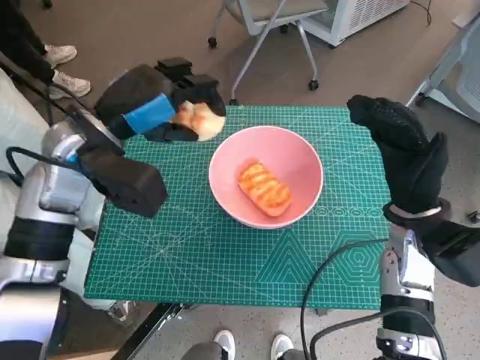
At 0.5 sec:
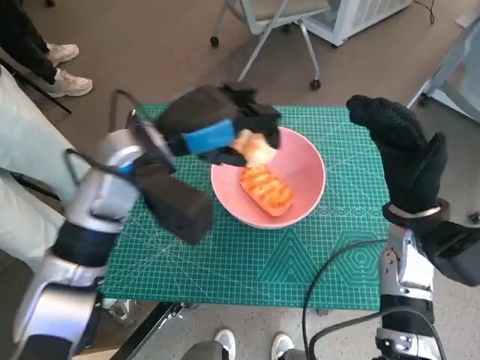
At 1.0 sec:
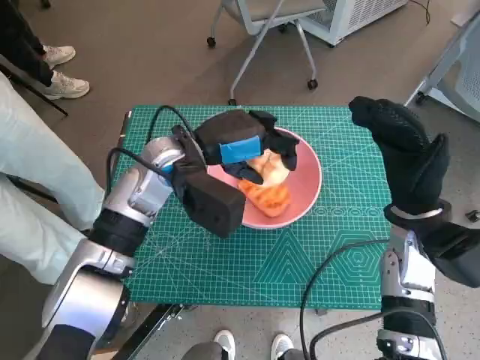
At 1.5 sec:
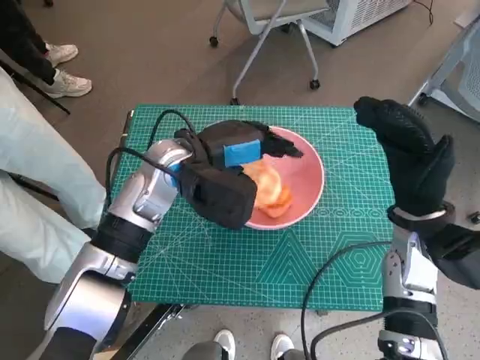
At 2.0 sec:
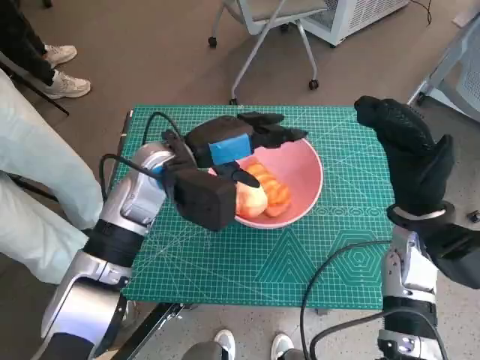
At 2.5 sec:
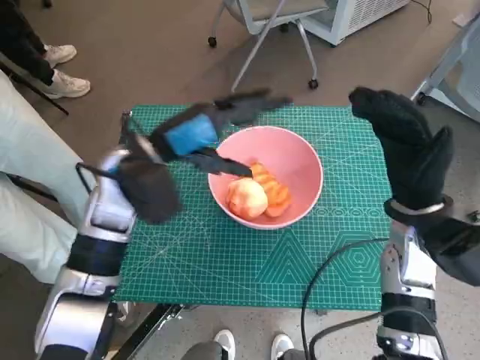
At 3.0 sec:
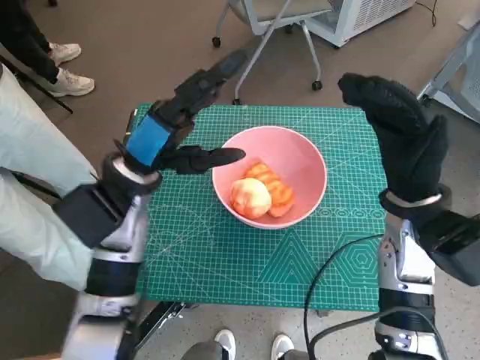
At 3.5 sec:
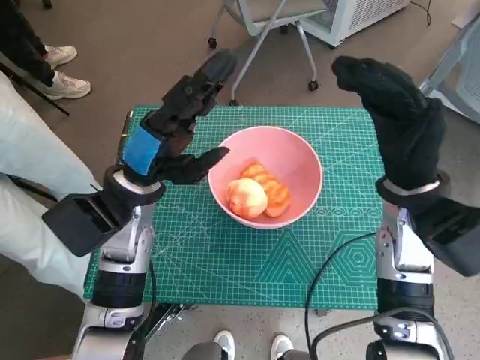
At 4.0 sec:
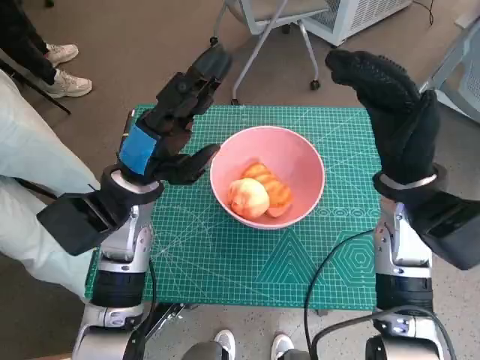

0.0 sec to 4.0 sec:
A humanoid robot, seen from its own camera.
Task of the whole recording: Push the bowl into the center of the table and put the bread into the bowl.
Step, 0.0 sec to 2.0 sec: Place the round bread in pink bowl with left hand.
0.0 sec to 2.0 sec: The left hand goes about 10 cm to the right.
2.0 sec to 4.0 sec: The left hand shifts by about 5 cm, while the right hand goes roughly 5 cm upward.

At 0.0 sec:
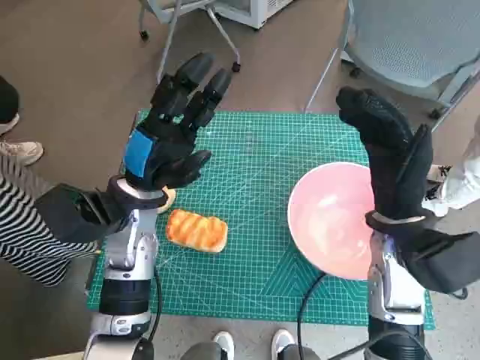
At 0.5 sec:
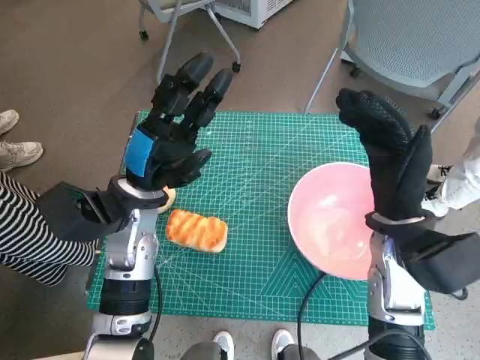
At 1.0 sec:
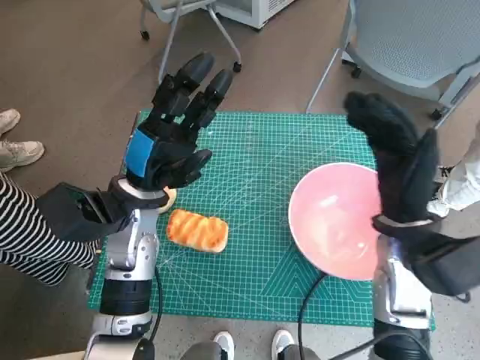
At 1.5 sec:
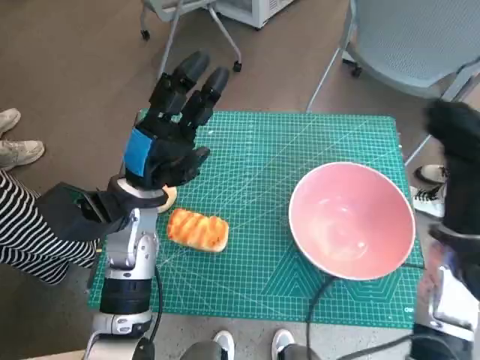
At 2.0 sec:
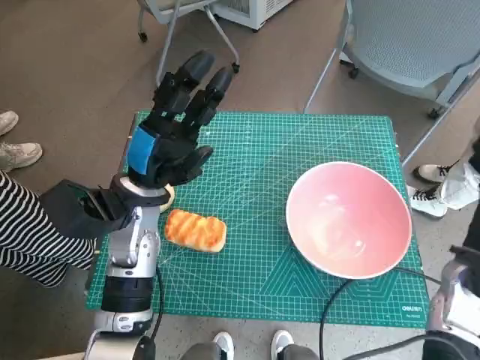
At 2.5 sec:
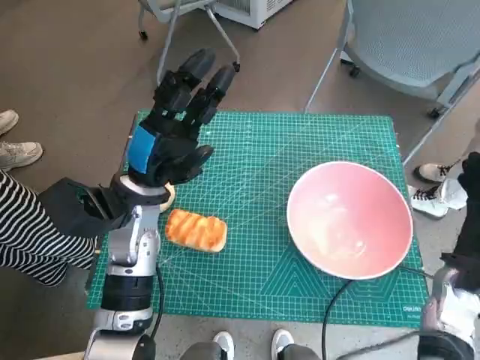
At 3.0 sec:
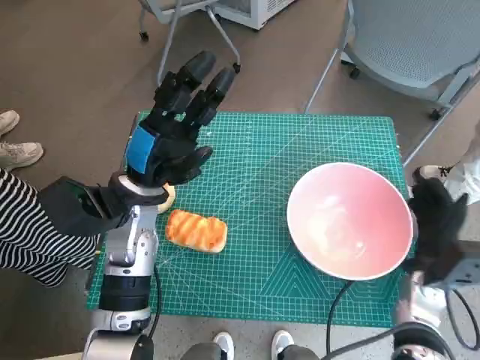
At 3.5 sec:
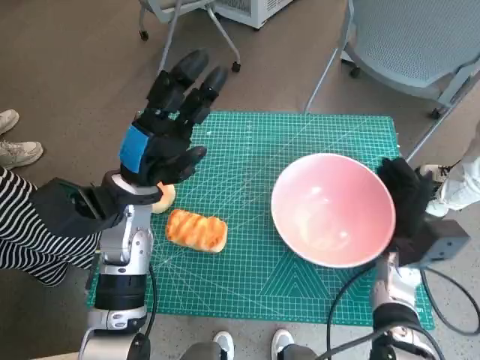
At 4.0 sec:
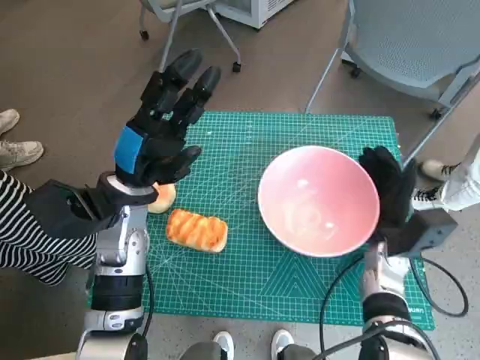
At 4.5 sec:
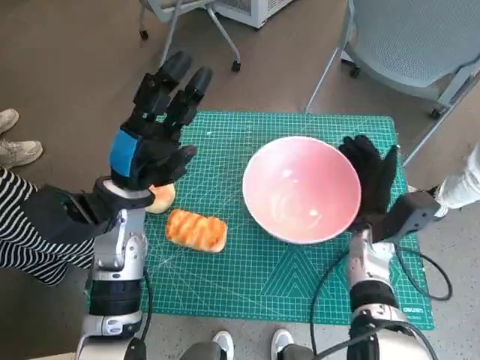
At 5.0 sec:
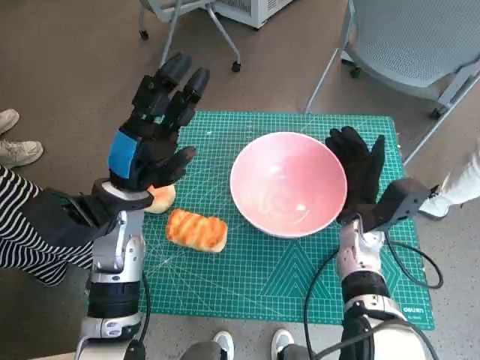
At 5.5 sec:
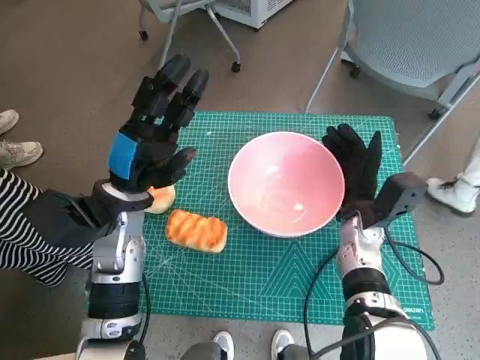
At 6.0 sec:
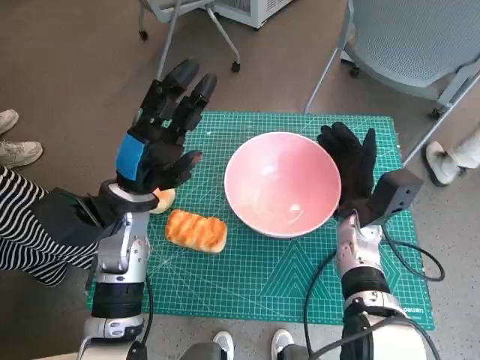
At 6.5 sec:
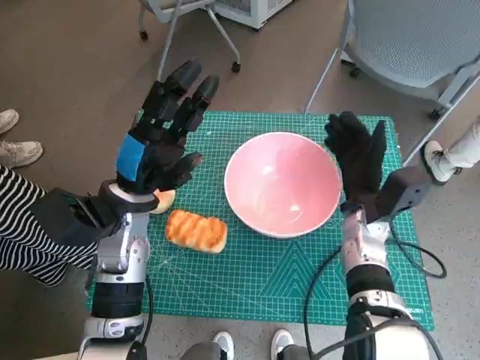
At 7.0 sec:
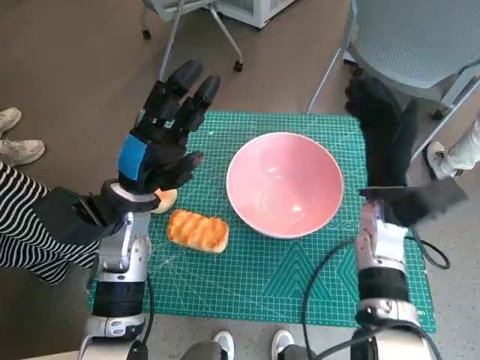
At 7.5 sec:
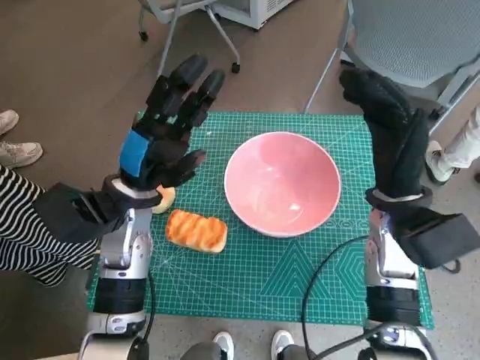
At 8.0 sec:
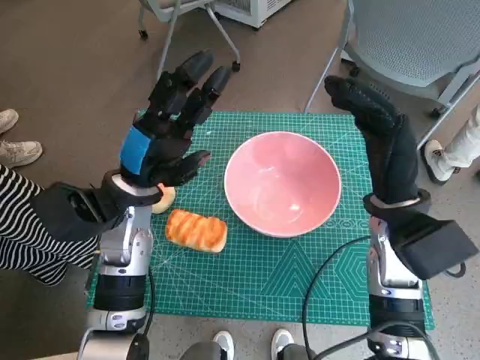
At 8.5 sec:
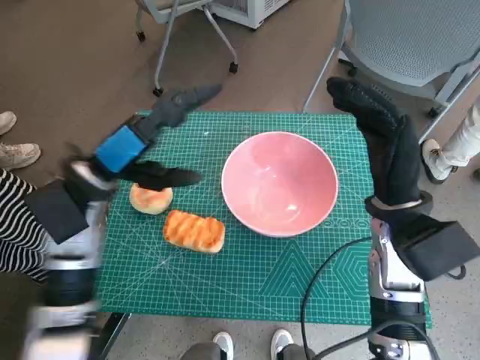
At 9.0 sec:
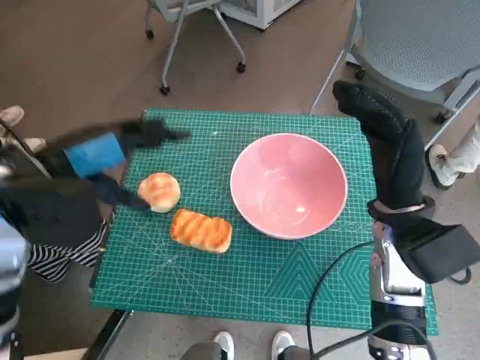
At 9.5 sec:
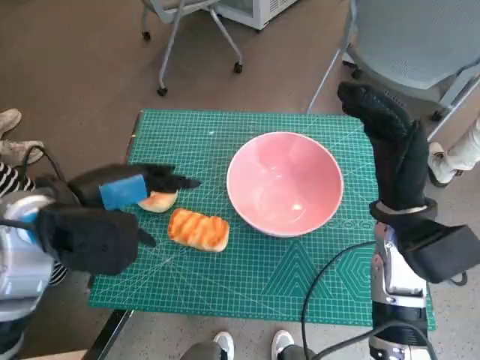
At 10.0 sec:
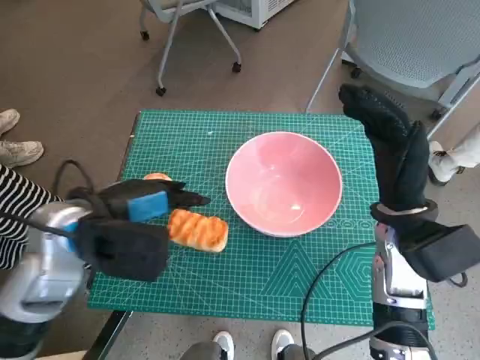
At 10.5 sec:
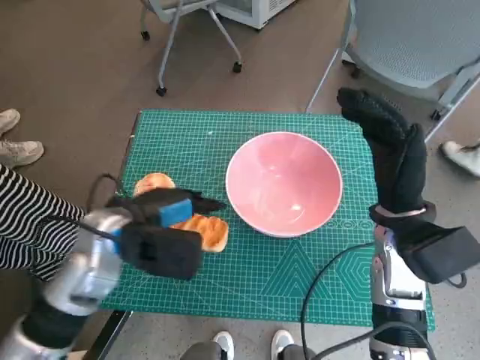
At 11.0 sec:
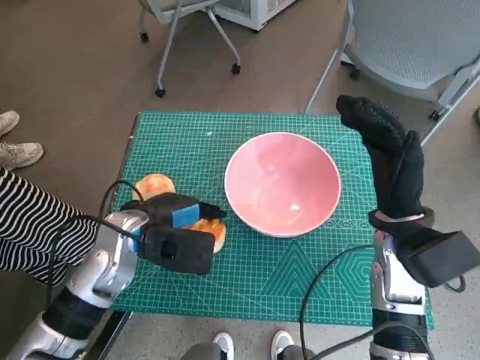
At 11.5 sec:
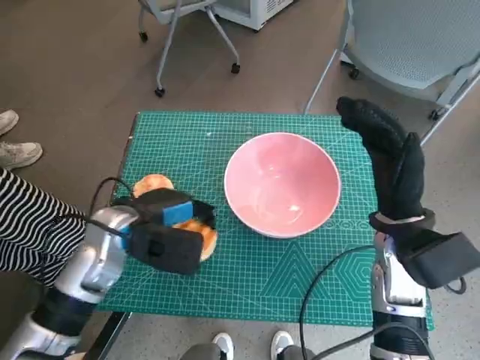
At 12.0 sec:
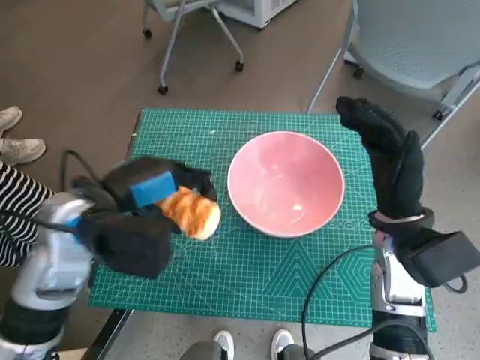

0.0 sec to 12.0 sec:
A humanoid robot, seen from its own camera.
Task of the whole recording: Push the bowl into the center of the table and put the bread into the bowl.
Step, 0.0 sec to 6.5 sec: Move the pink bowl to the center of table with right hand.
Step, 7.0 sec to 11.0 sec: Grasp the long bread with left hand.
2.0 sec to 4.0 sec: The right hand goes roughly 10 cm to the left and downward.
4.0 sec to 6.0 sec: The right hand shifts by roughly 5 cm.
6.0 sec to 8.0 sec: The right hand heads upward, covering roughly 10 cm.
8.0 sec to 10.0 sec: The left hand goes about 5 cm backward.
10.0 sec to 12.0 sec: The left hand moves about 10 cm downward and comes back.

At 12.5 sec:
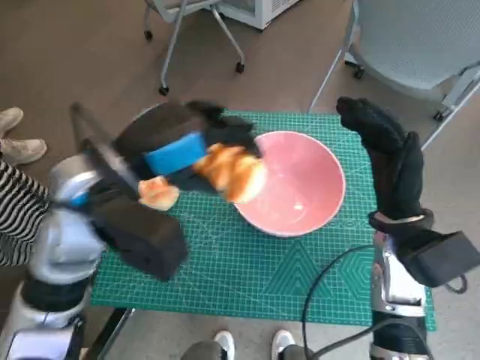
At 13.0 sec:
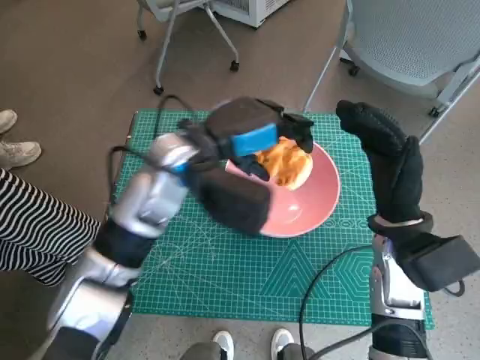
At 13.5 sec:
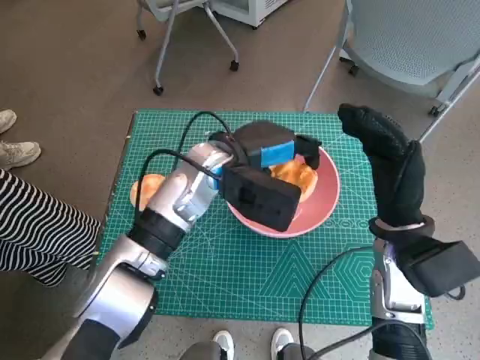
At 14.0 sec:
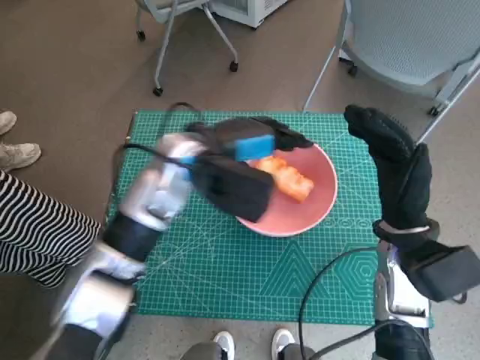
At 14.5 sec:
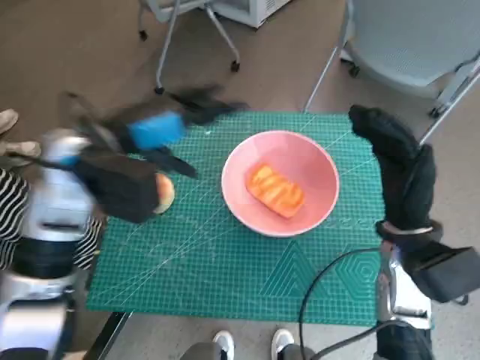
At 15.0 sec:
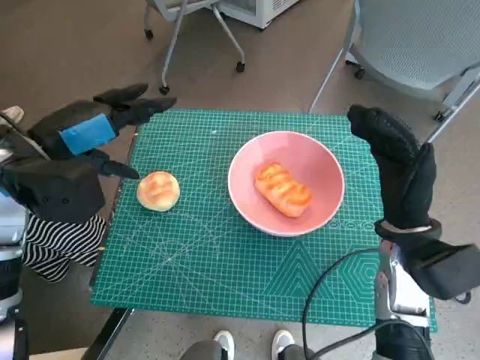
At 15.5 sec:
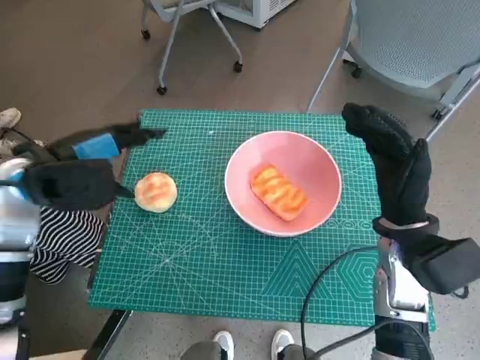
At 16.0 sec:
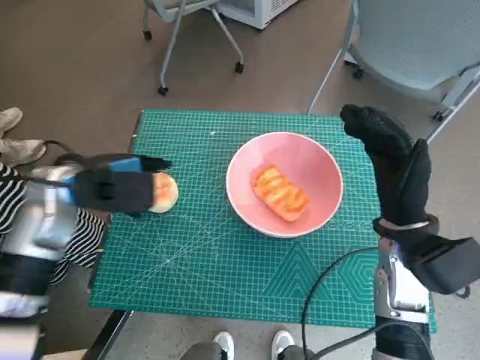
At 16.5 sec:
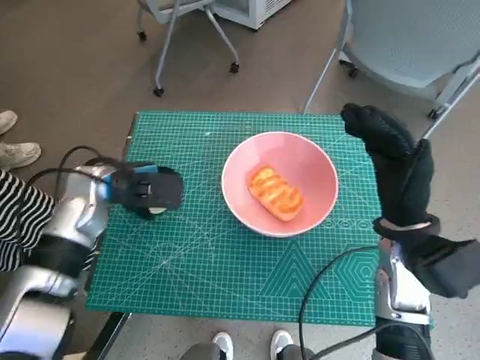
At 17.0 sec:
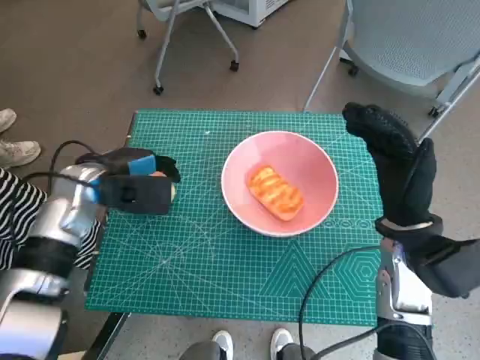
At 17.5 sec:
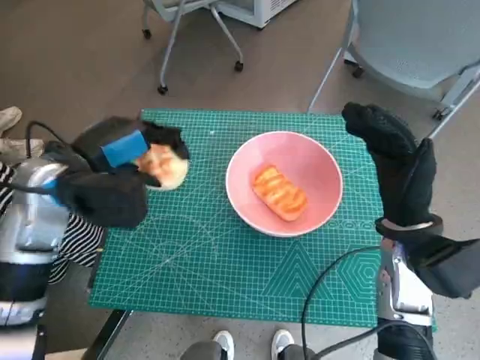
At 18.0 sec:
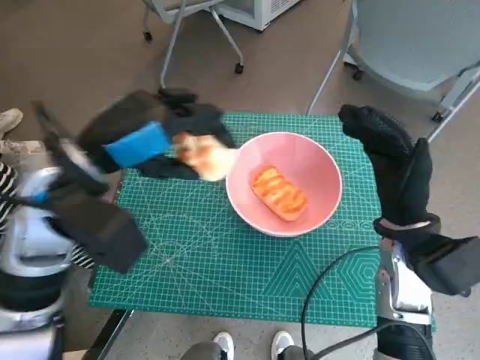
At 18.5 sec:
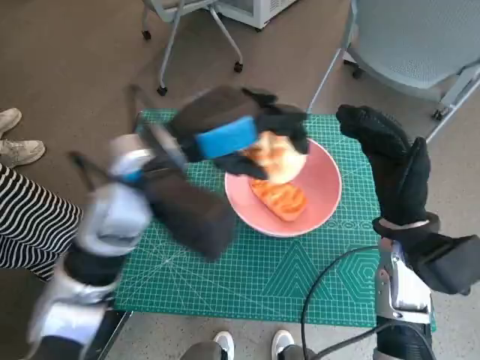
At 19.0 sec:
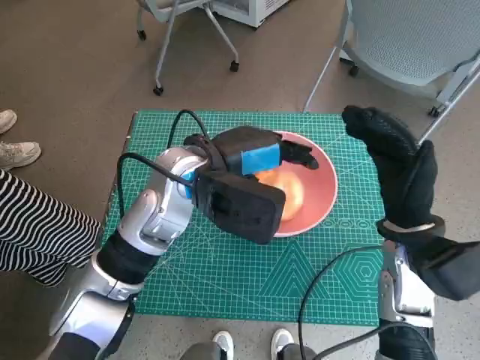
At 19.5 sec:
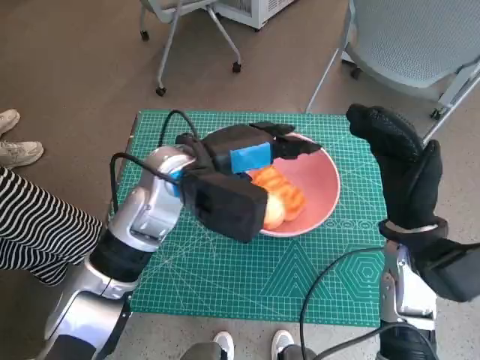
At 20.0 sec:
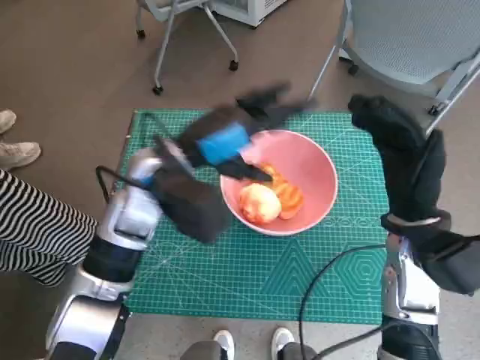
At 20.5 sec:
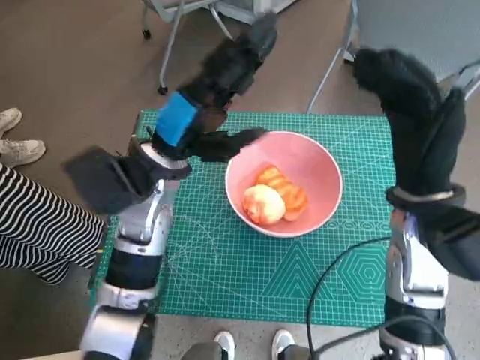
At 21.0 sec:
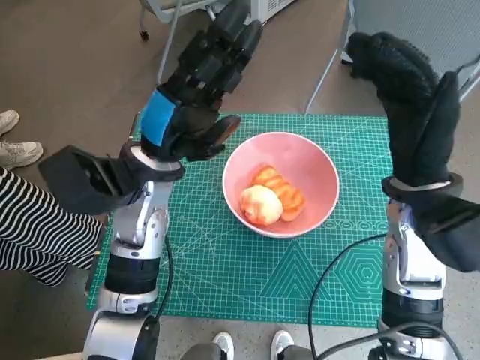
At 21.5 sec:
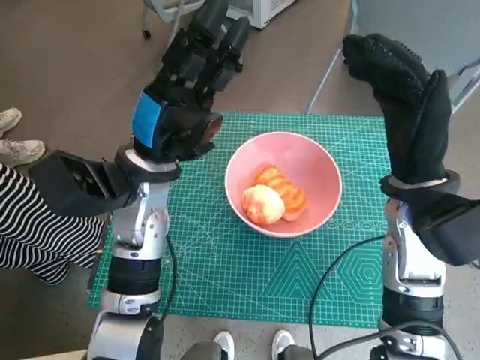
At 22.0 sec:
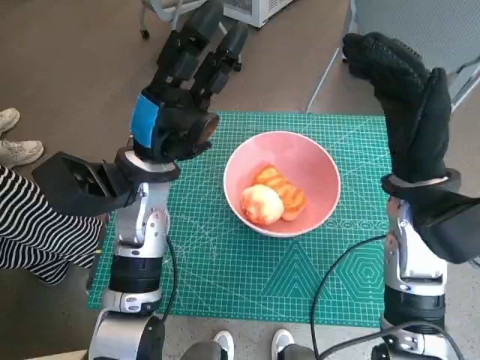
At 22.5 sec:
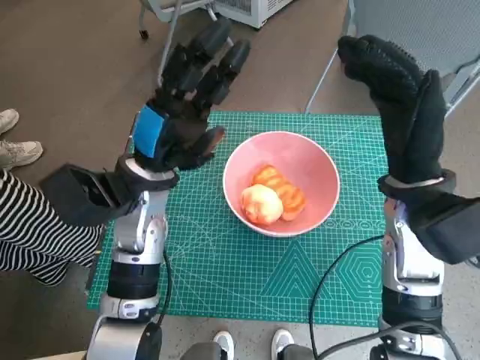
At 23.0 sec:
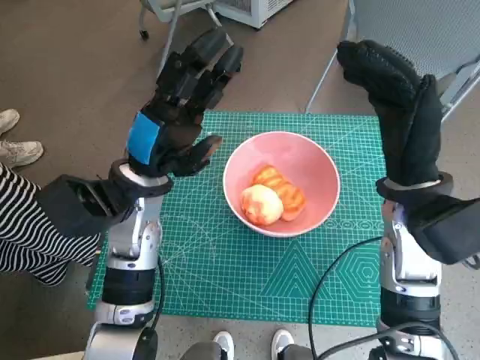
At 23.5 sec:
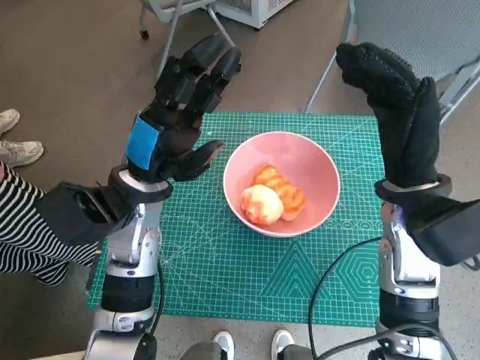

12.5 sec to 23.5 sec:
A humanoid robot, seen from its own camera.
Task of the whole recording: Push the bowl into the center of the table and put the bread into the bowl.
Step, 14.0 sec to 16.5 sec: Grasp the round bread with left hand.
Step, 17.0 sec to 19.5 sec: Place the round bread in pink bowl with left hand.
12.5 sec to 14.5 sec: The left hand moves roughly 10 cm to the right and comes back.
14.5 sec to 16.0 sec: The left hand moves to the left and downward, roughly 10 cm.
16.0 sec to 18.0 sec: The left hand moves upward and to the right, roughly 10 cm.
18.0 sec to 20.0 sec: The left hand goes roughly 5 cm to the right.
20.0 sec to 21.5 sec: The right hand moves upward, roughly 5 cm.
